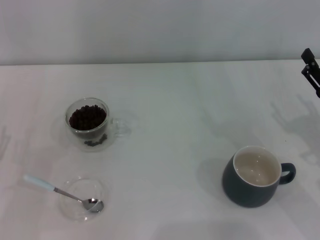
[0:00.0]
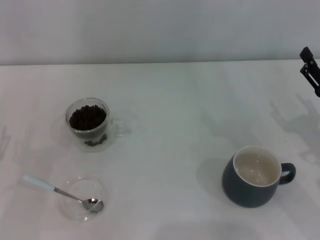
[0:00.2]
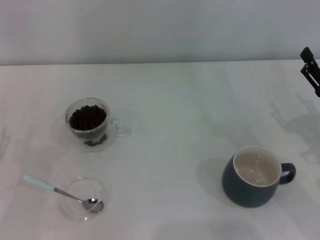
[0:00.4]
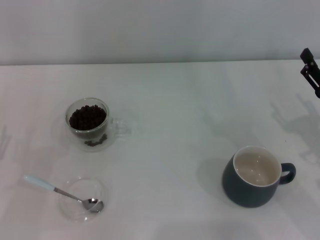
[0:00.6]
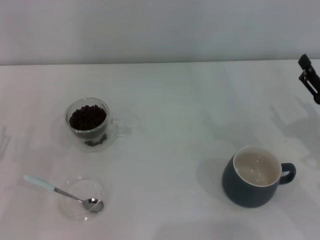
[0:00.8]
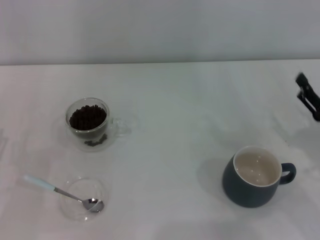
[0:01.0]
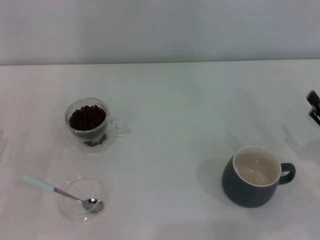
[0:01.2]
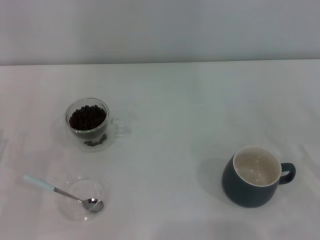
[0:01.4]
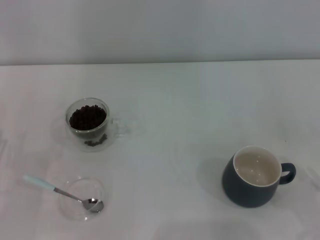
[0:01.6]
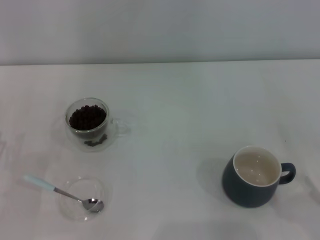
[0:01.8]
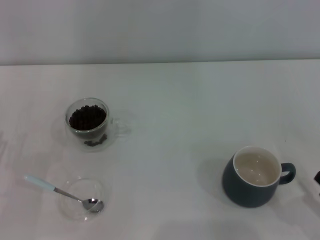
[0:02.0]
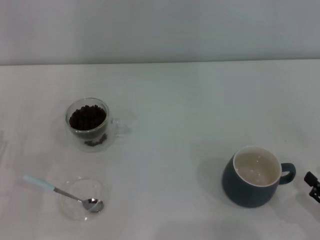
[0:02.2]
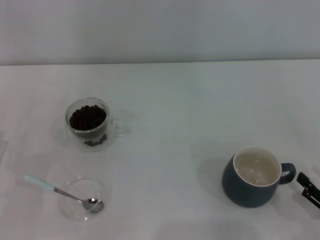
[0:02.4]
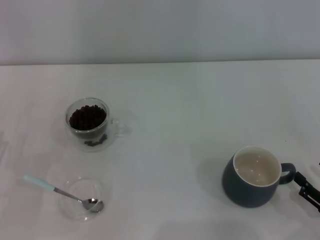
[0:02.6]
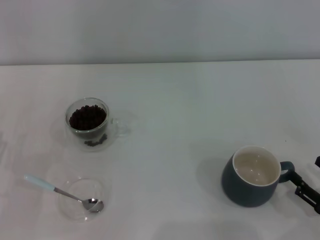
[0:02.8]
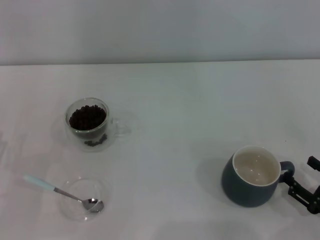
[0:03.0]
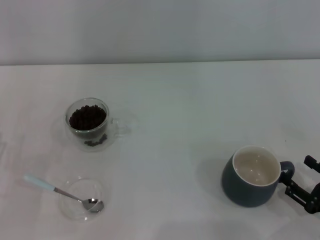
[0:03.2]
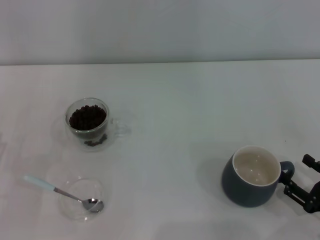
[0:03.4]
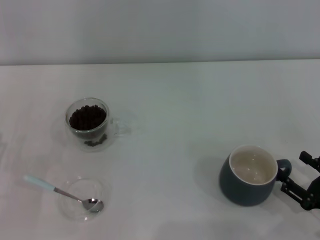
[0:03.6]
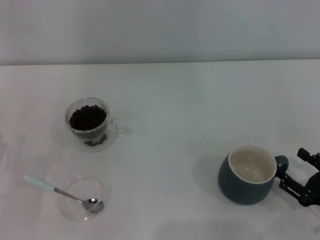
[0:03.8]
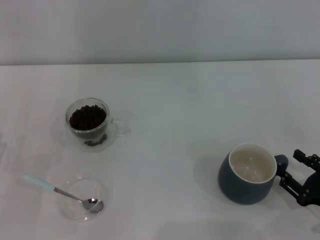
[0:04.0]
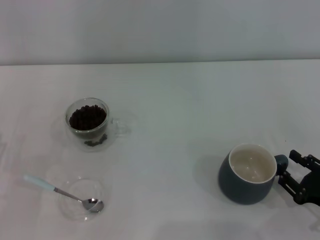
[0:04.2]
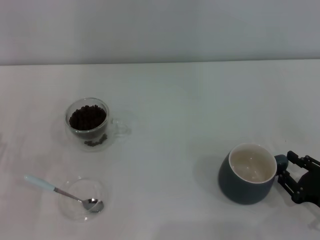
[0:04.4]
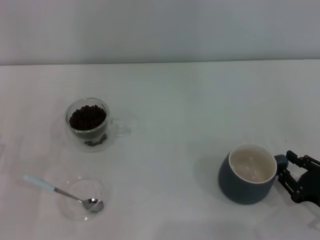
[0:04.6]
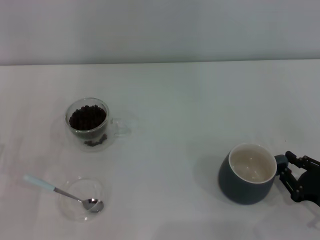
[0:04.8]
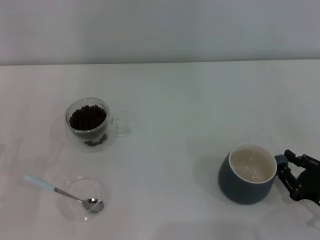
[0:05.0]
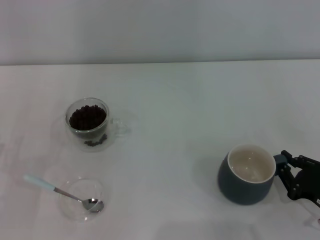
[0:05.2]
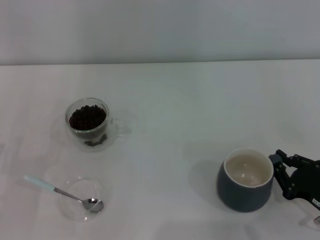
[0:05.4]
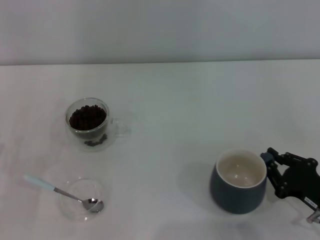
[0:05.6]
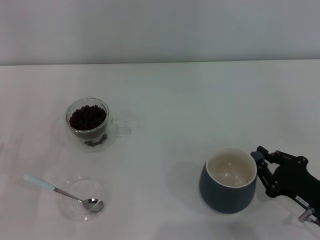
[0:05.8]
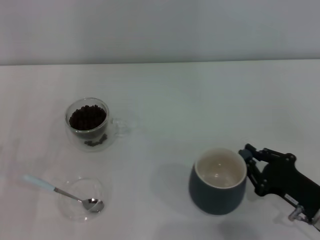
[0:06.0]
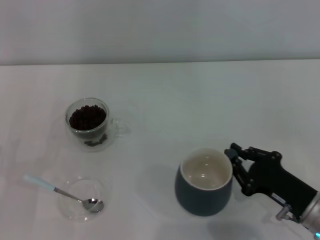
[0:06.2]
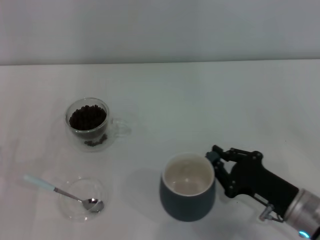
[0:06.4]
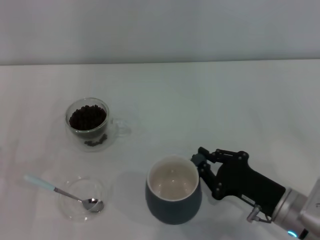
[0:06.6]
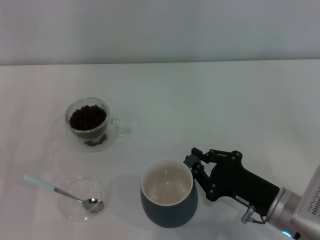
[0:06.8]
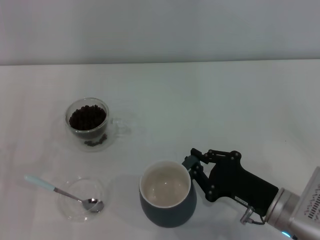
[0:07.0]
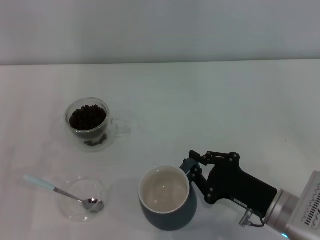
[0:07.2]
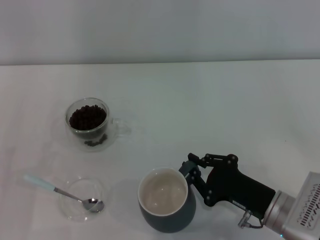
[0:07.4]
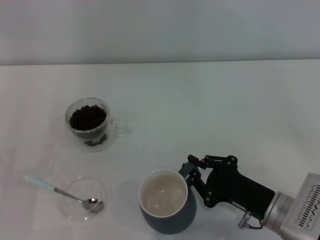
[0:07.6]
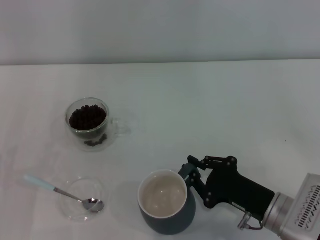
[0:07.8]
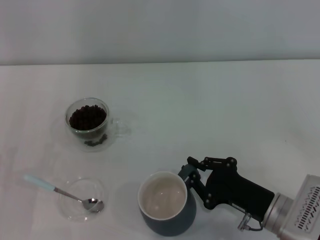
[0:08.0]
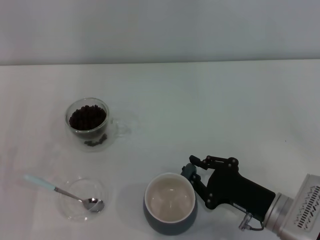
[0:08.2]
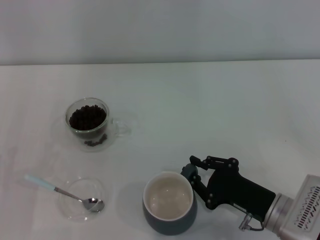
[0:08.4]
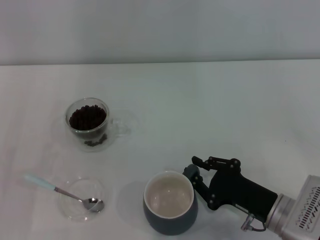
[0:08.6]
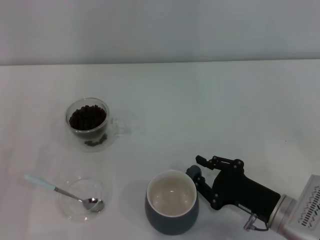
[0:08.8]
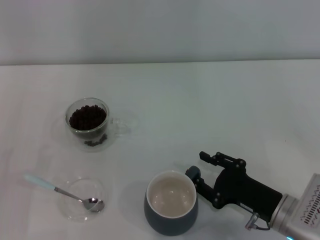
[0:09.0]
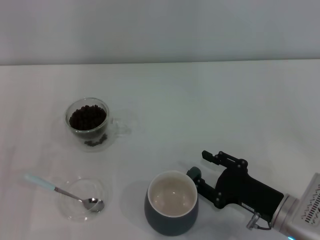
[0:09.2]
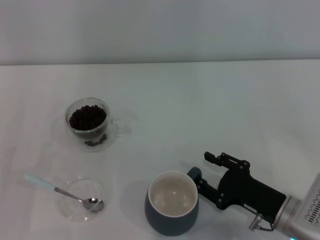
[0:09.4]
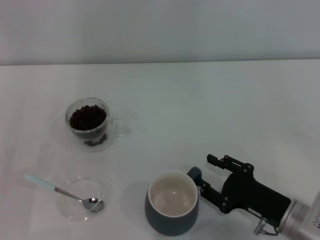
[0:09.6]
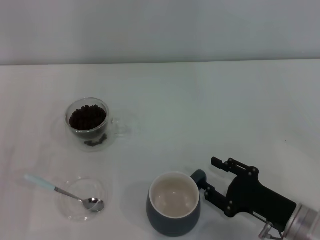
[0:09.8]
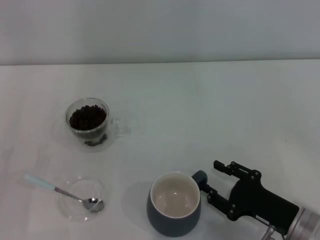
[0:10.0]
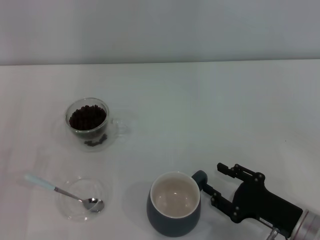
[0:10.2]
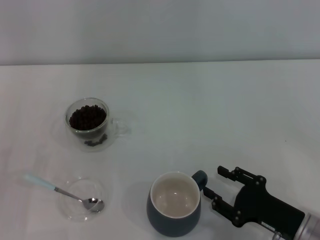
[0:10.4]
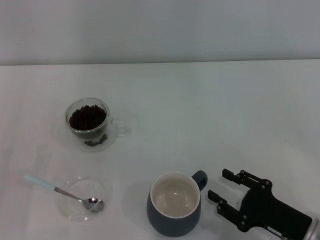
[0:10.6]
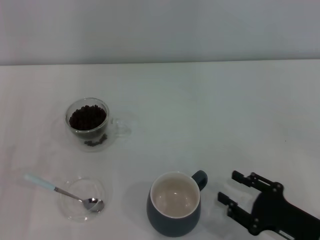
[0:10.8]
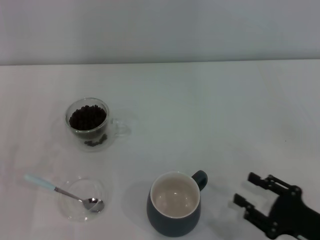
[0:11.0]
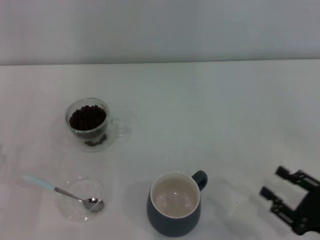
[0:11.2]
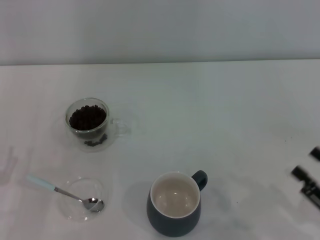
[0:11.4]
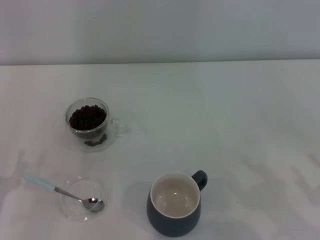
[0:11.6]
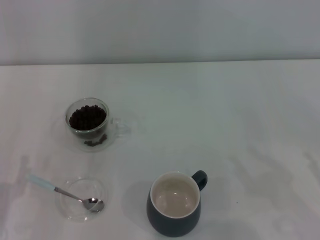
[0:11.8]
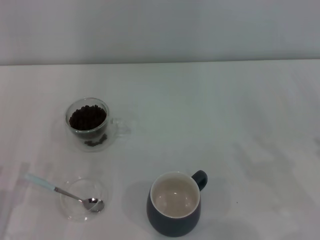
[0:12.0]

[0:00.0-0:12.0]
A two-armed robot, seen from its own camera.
Task of the whole recording: Use a blue spoon to take out the coffee beans from the glass and pour them into the gray cup.
Step, 0:00.0 to 0:10.8: Move the cup to the center of view with the left gripper.
0:00.0 to 0:01.6: The right gripper is displaced backward by approximately 15 cm.
0:01.6 to 0:03.0: The right gripper changes place by about 5 cm.
0:03.0 to 0:04.4: The right gripper closes its fingers.
0:04.4 to 0:06.0: The right gripper travels to the left by approximately 5 cm, and closes.
0:06.0 to 0:07.6: The right gripper goes some 5 cm to the left.
0:07.6 to 0:09.0: The right gripper opens its fingers.
0:09.0 to 0:10.4: The grippers move only a little.
0:10.4 to 0:12.0: The right gripper goes roughly 15 cm to the right and upward.

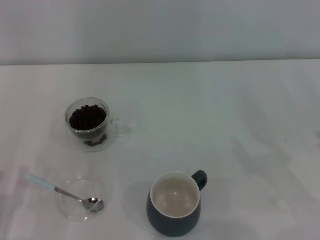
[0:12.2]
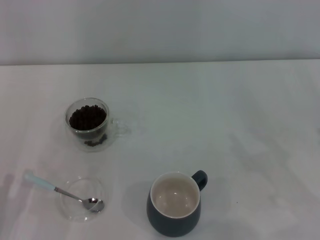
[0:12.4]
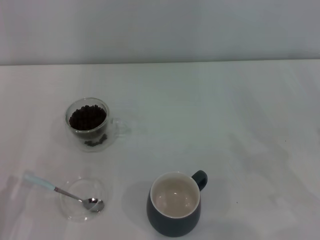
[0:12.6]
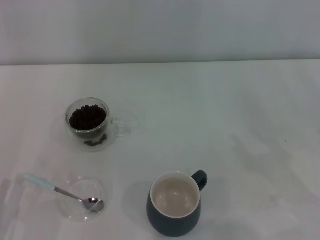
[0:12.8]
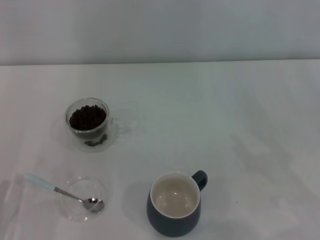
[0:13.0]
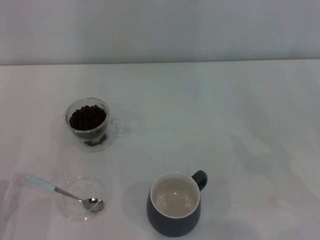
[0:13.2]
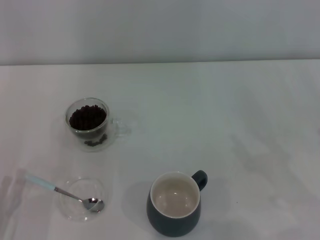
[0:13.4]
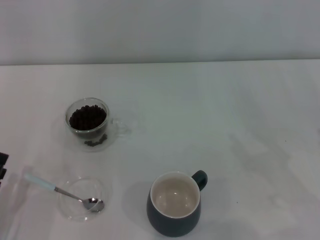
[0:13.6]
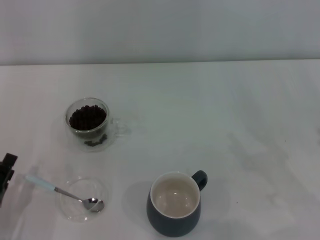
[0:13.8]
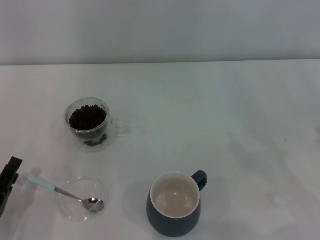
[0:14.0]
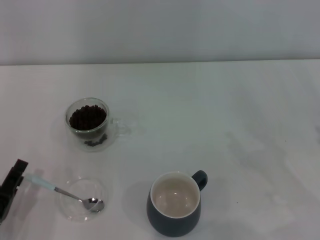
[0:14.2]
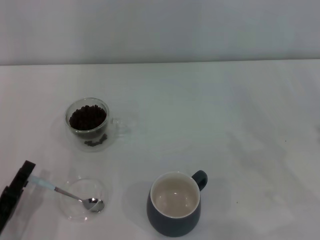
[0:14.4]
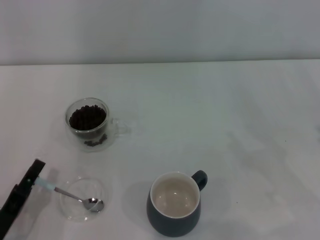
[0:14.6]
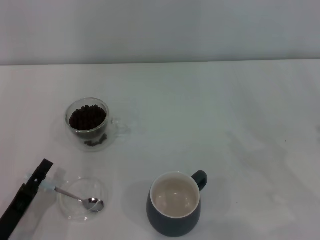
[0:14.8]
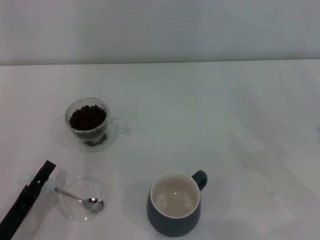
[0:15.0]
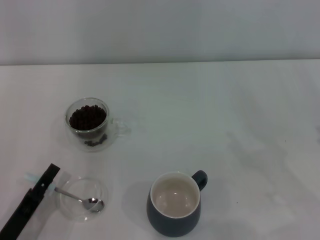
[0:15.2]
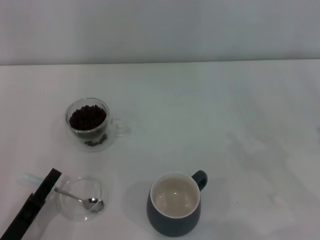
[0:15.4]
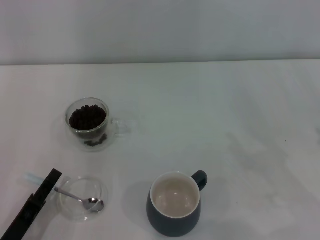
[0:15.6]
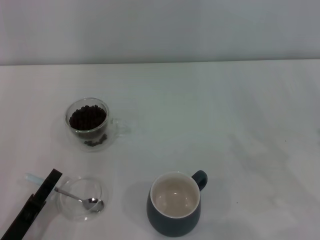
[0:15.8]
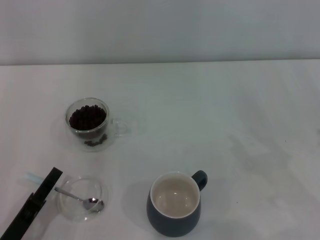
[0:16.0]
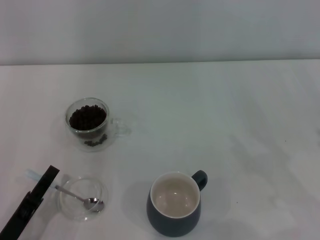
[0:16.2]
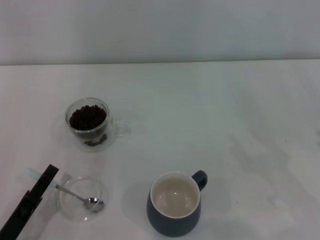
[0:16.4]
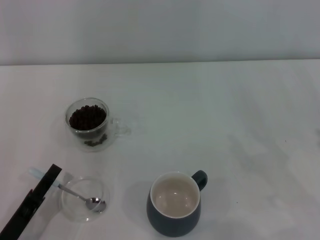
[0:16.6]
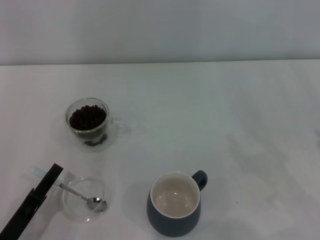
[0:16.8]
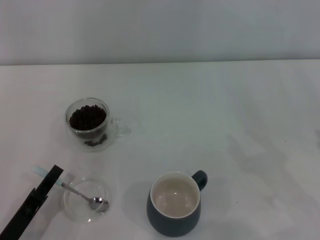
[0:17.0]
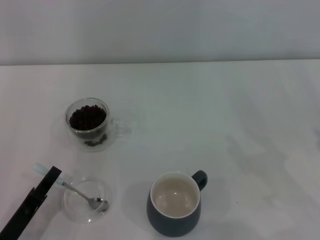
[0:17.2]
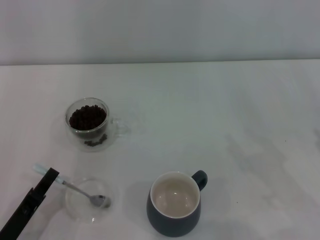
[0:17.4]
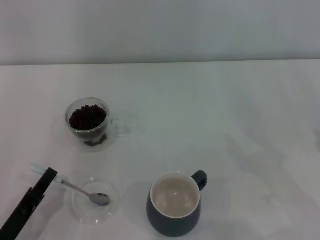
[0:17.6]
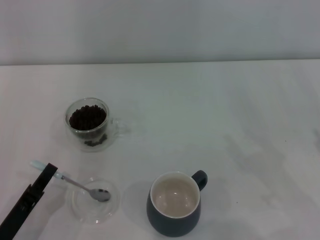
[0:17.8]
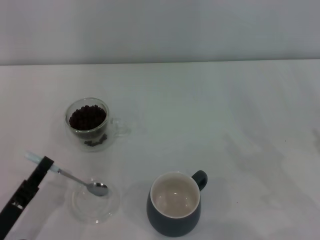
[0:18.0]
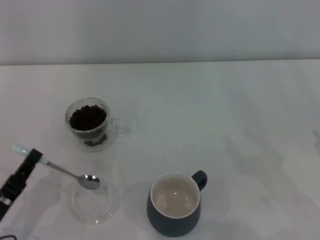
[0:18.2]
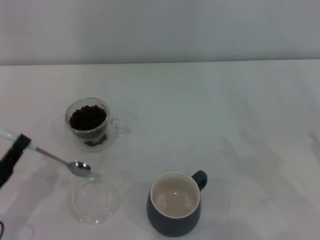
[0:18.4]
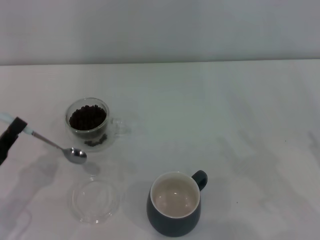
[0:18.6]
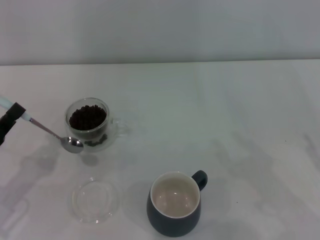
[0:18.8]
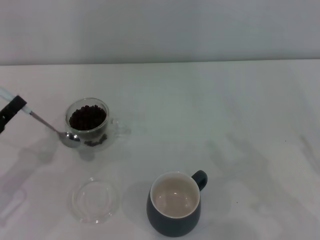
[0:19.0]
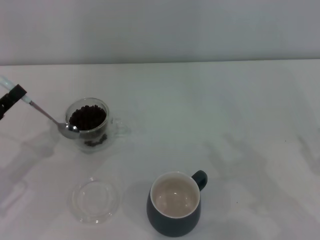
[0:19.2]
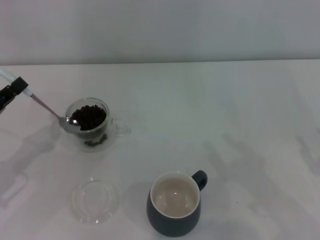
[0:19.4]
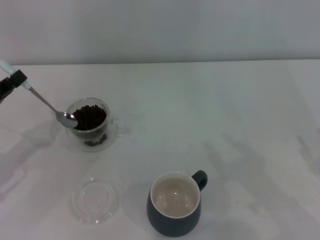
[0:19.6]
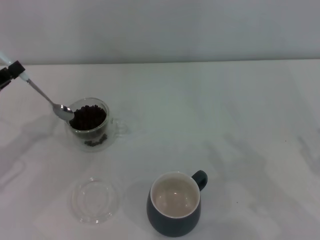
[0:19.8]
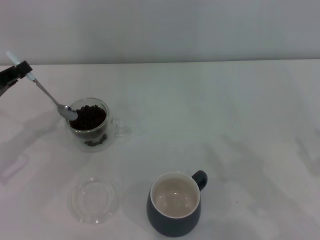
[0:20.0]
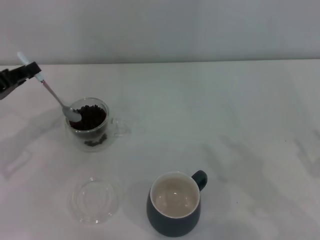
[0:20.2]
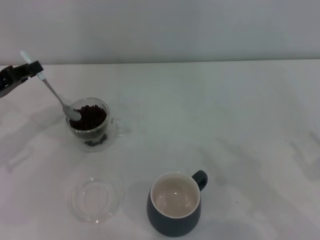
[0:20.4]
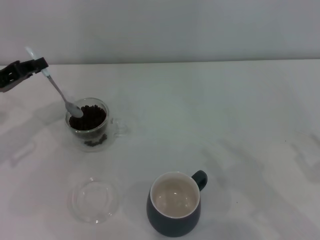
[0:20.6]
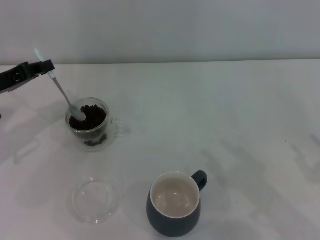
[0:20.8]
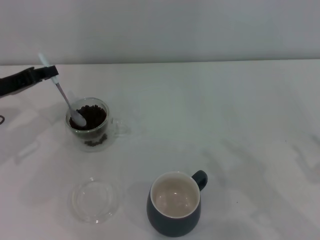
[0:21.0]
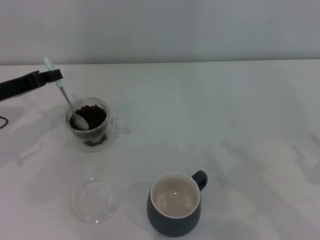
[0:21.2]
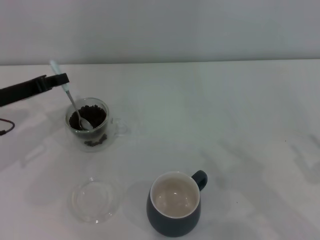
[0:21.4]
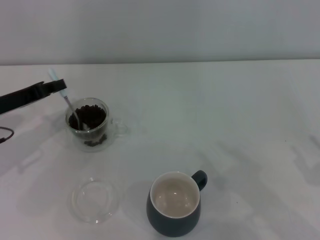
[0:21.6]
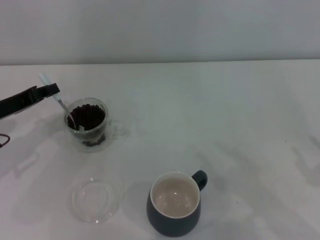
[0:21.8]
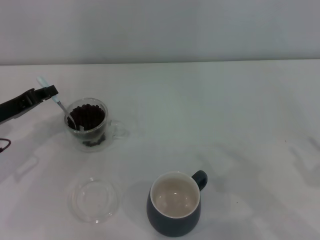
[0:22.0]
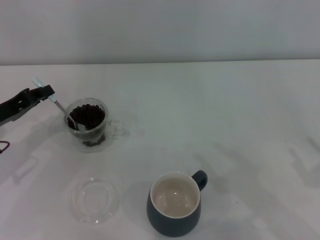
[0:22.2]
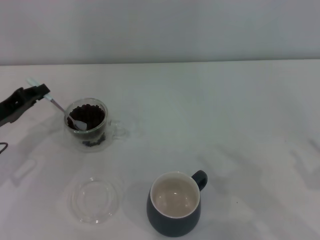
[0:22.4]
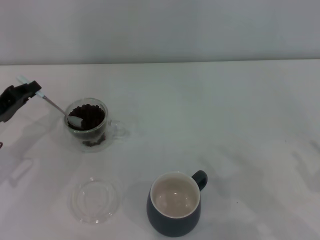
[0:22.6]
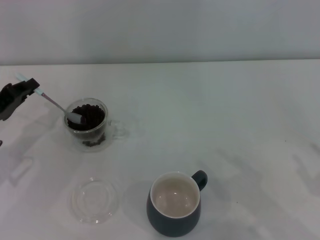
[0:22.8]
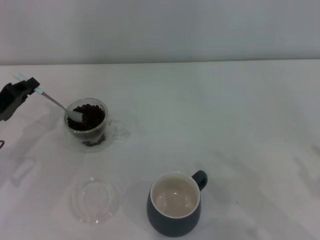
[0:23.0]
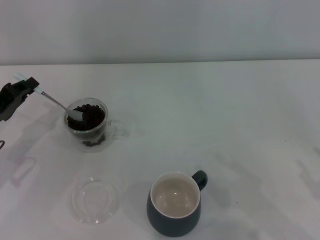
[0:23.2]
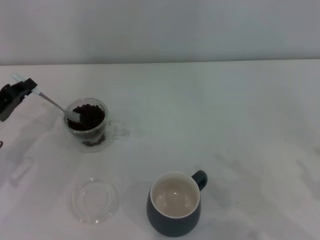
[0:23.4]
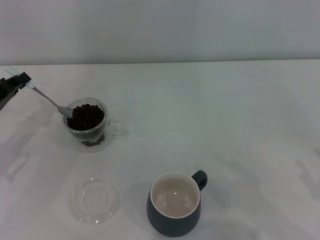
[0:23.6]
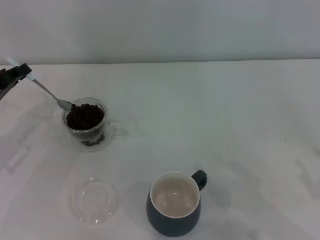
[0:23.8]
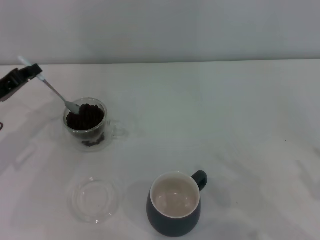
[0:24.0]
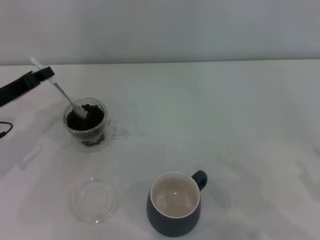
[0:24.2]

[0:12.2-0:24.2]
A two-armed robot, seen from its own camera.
Task of the whole recording: Use a blue spoon to take out the coffee beans from the glass and pour them into the gray cup.
Step, 0:12.2 to 0:18.2: Pick up the spoon with the right gripper.
0:13.8 to 0:15.2: There are only small adjustments of the grippers.
0:15.2 to 0:16.6: The two grippers keep their place.
0:16.6 to 0:18.2: The left gripper closes its fingers.
0:18.2 to 0:19.8: The left gripper is displaced forward, upward and to the left by some 20 cm.
0:19.8 to 0:21.2: The left gripper goes about 5 cm forward.
0:21.2 to 0:22.6: The left gripper changes place by some 5 cm.
0:22.6 to 0:24.2: The grippers make only small movements.
